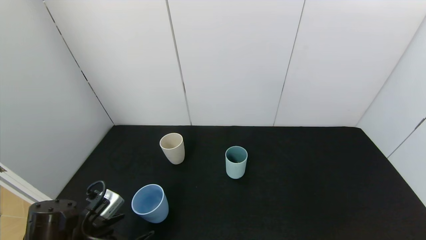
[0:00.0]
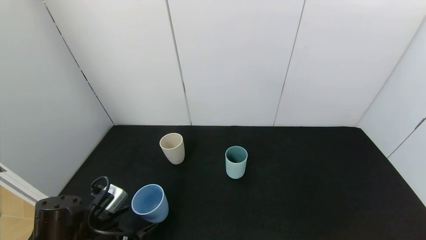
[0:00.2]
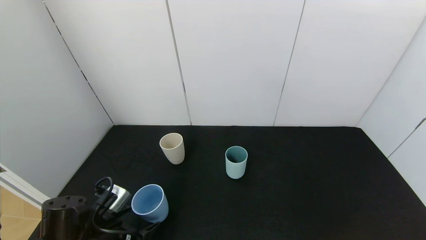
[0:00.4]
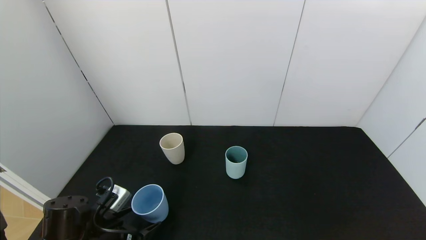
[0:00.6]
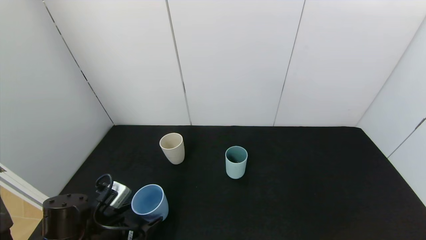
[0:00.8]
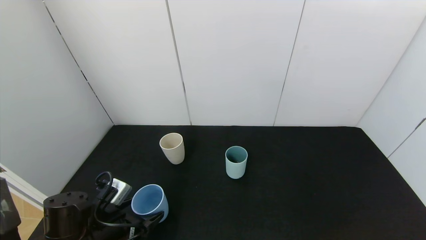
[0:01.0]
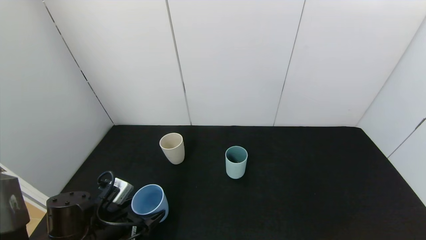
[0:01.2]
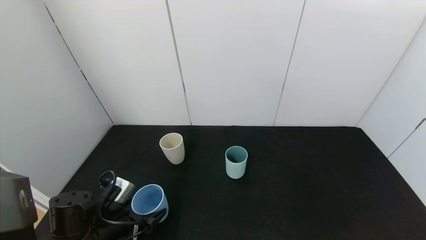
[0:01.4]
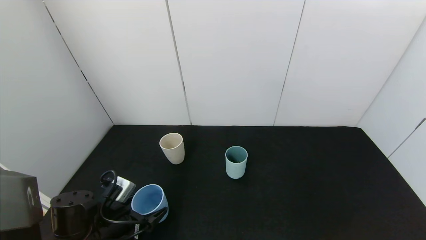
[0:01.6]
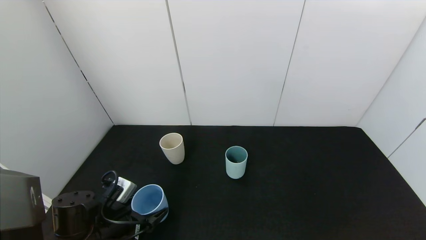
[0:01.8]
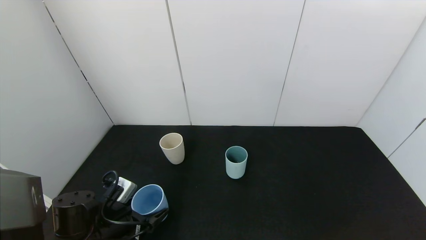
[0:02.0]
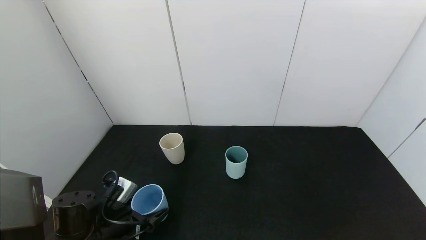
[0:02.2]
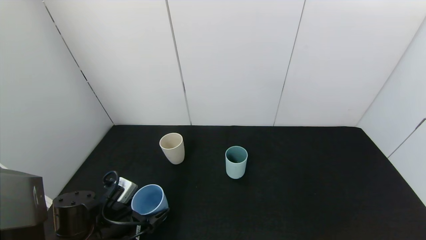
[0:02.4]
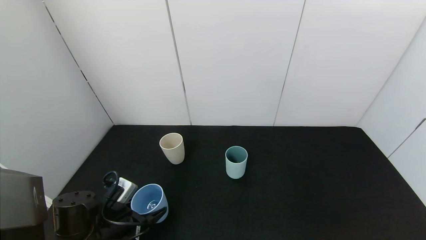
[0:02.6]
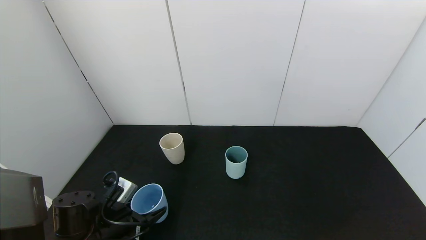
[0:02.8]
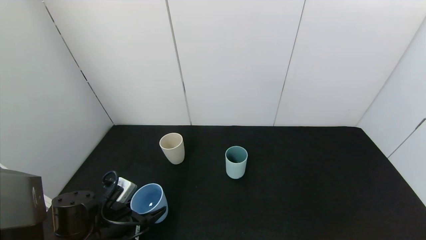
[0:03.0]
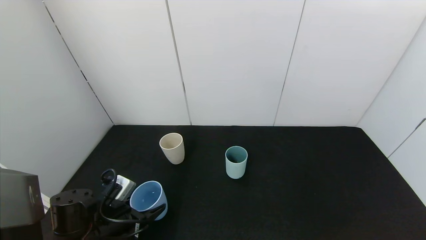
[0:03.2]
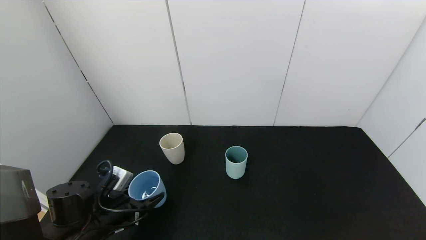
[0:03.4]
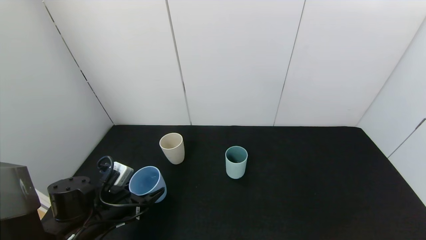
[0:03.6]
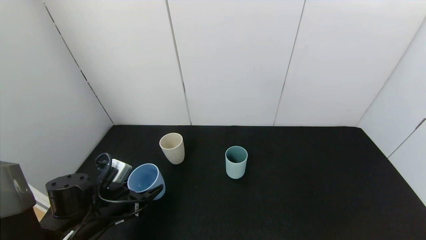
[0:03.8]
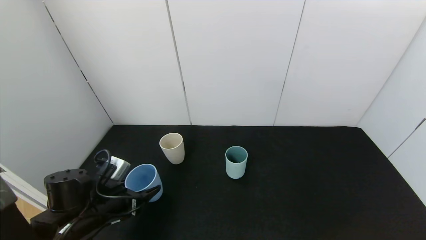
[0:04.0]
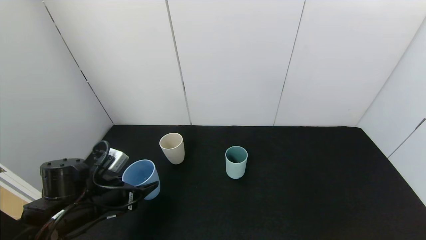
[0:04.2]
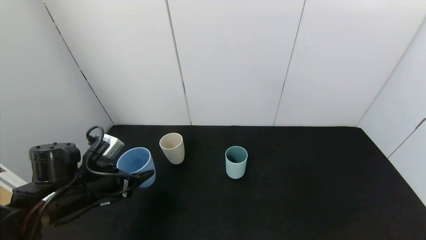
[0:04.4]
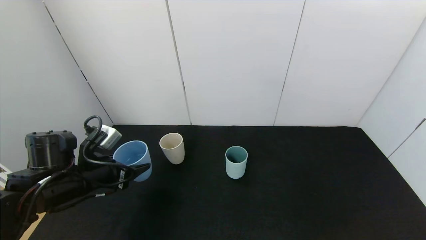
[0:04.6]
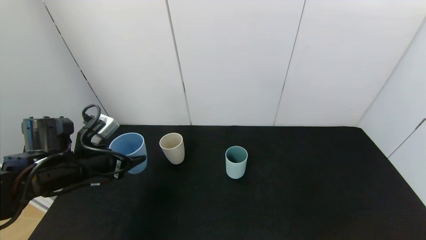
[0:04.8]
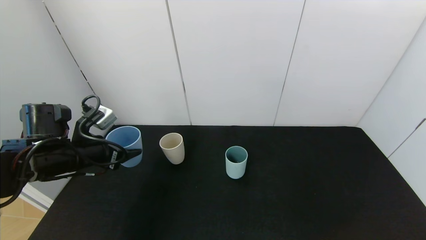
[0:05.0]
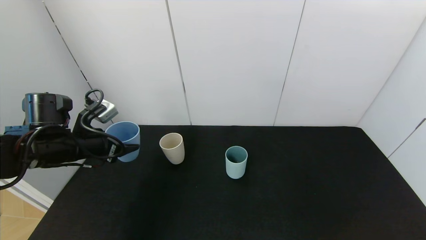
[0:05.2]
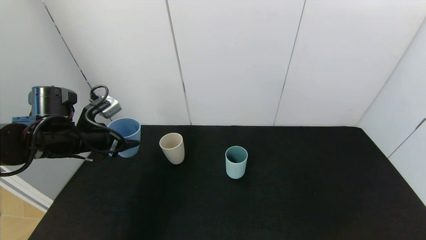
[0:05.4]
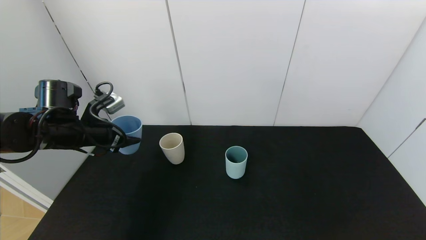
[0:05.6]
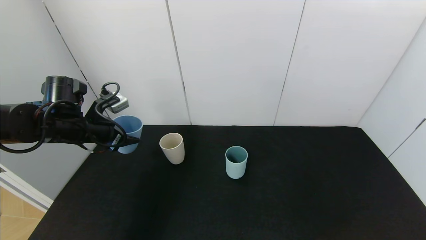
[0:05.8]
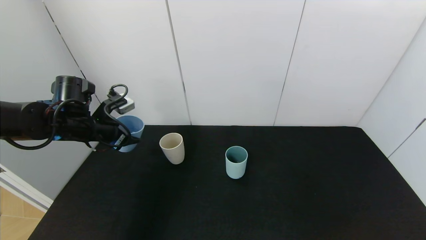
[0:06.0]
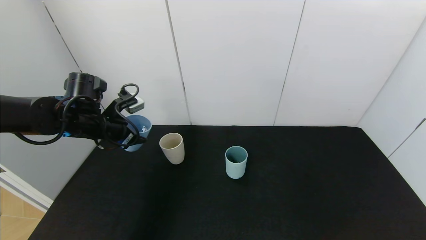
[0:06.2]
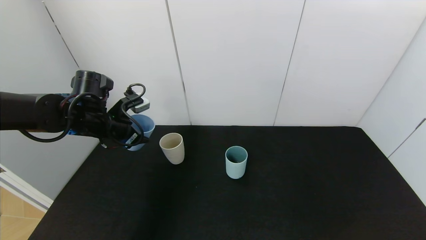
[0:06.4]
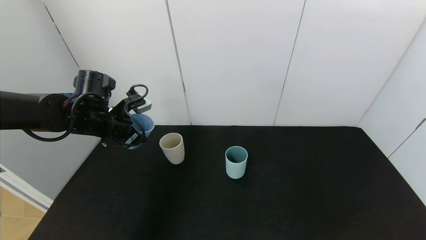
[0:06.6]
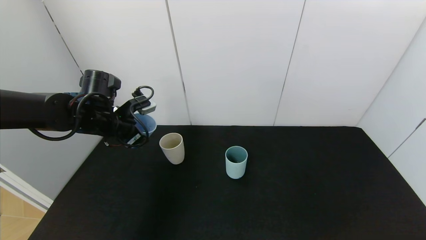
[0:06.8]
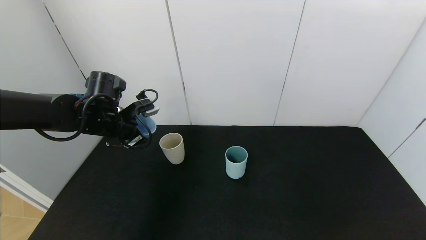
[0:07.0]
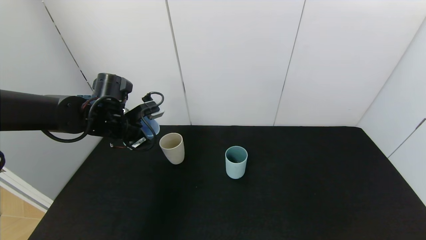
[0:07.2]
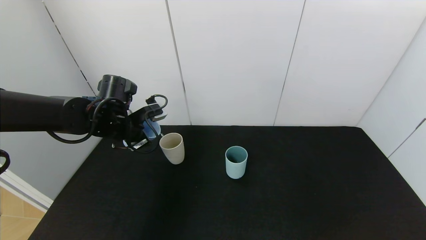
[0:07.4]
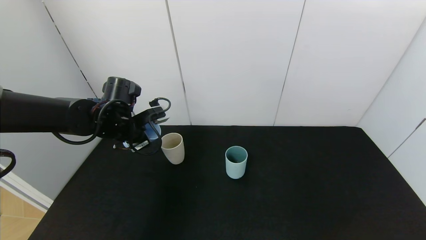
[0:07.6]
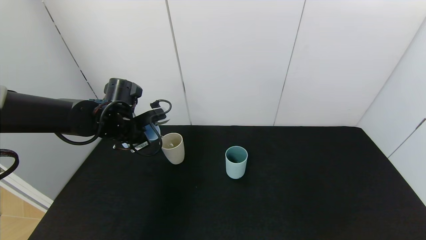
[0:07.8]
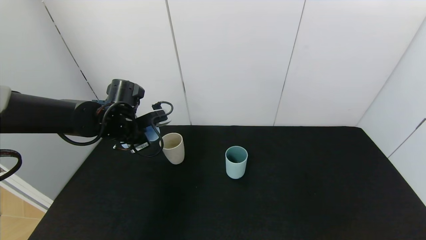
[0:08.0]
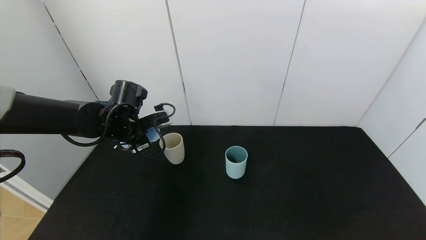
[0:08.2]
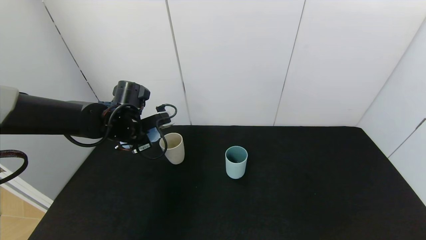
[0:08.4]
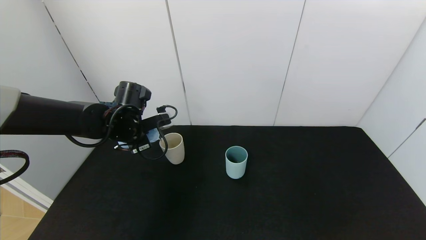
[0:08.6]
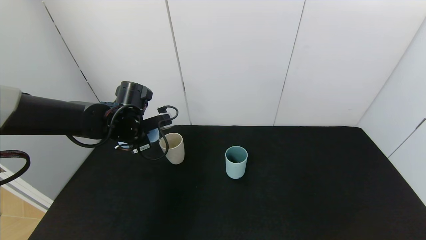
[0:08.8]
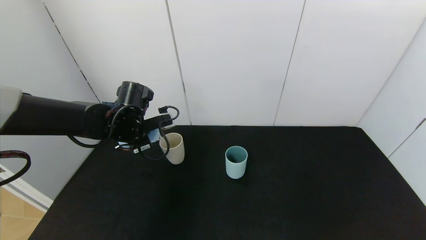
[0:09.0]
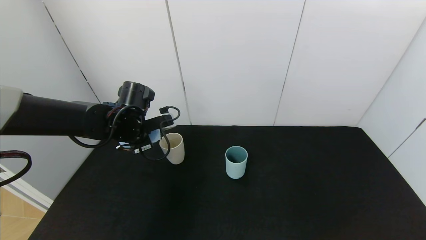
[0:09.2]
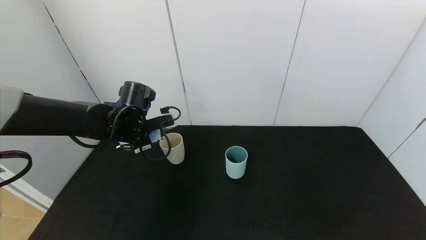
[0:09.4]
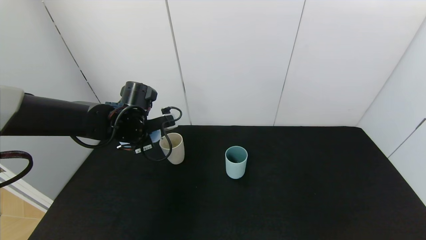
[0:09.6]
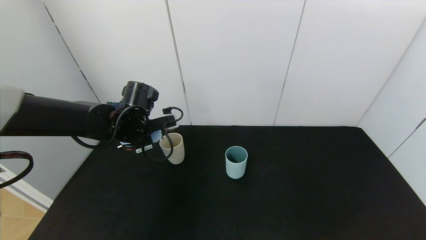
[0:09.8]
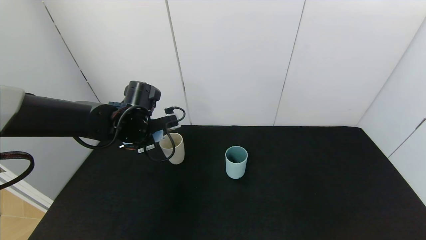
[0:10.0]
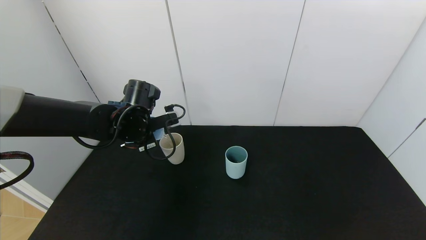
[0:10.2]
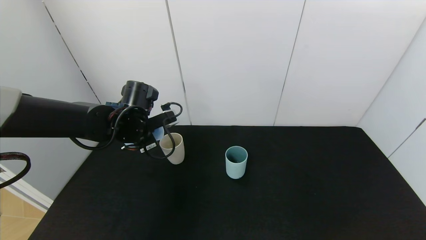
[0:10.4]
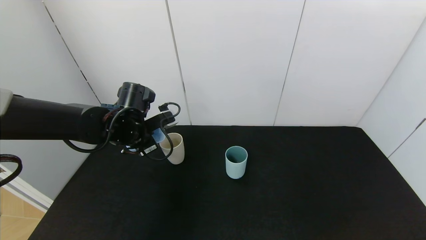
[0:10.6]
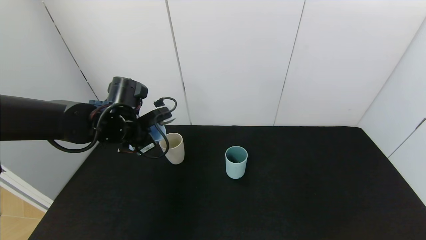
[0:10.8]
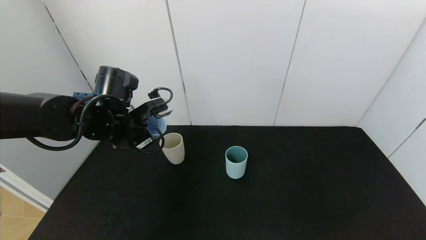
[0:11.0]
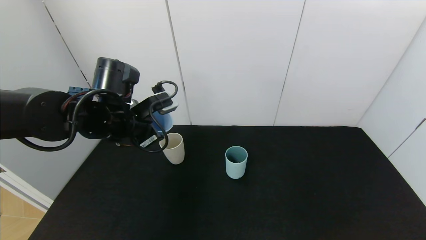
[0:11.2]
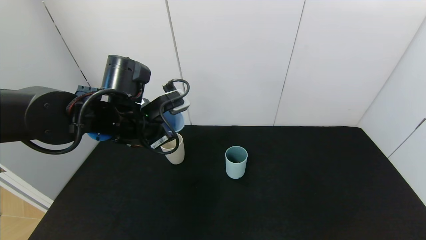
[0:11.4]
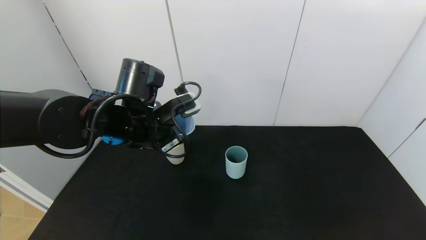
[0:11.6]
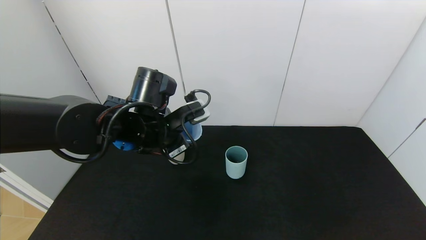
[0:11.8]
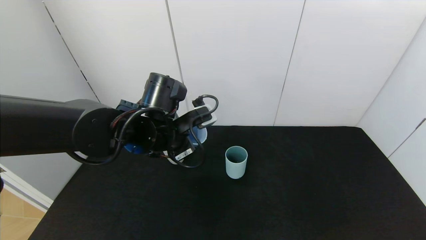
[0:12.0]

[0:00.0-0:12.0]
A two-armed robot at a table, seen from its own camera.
Task of the whole recording: use the gripper to pour the water into the other two cups on black table.
Step, 0:00.0 to 0:03.0: Grasp the blue cup with the left gripper.
Step, 0:03.2 to 0:11.0: Pour water from blue cup to white cup with the left gripper.
0:00.0 to 0:01.6: The grippers stay close to where they were, moving slightly.
0:01.6 to 0:03.0: The left gripper closes.
0:03.0 to 0:04.4: The left gripper heads upward, covering about 10 cm.
0:04.4 to 0:06.0: The left gripper shifts approximately 15 cm forward and upward.
0:06.0 to 0:07.6: The left gripper heads to the right, covering roughly 5 cm.
0:07.6 to 0:10.4: The grippers stay close to where they were, moving slightly.
0:10.4 to 0:12.0: The left gripper is displaced to the right and backward by about 10 cm.

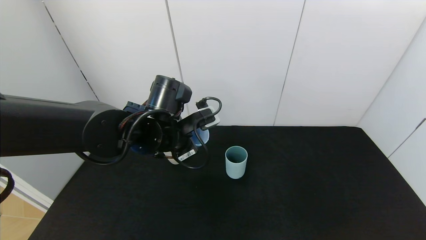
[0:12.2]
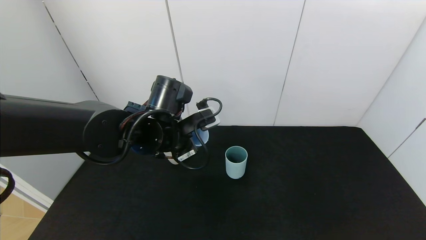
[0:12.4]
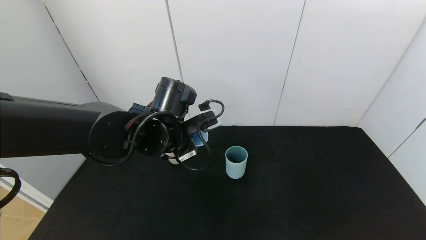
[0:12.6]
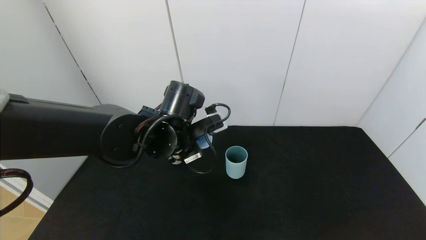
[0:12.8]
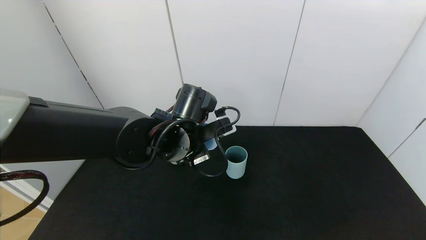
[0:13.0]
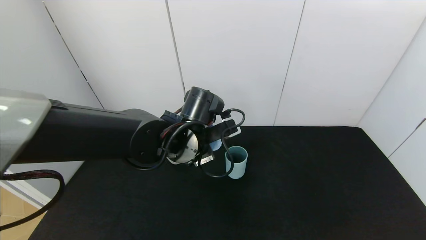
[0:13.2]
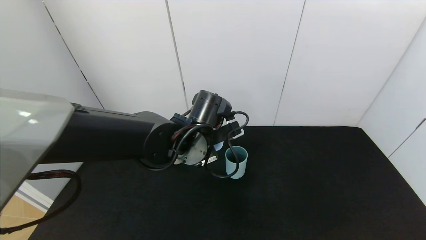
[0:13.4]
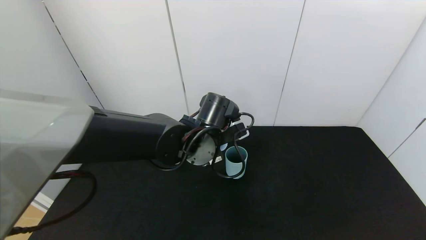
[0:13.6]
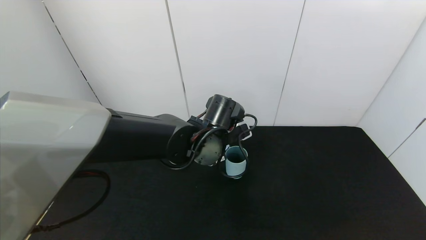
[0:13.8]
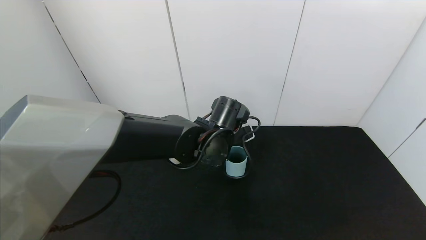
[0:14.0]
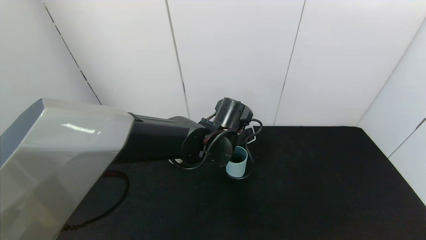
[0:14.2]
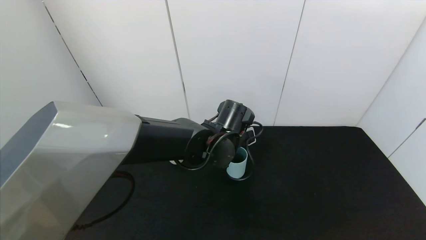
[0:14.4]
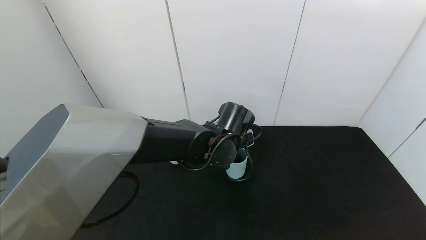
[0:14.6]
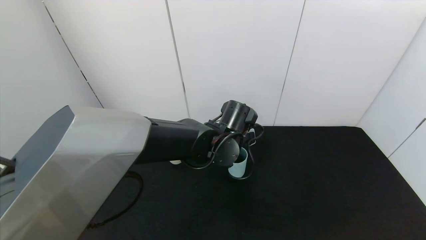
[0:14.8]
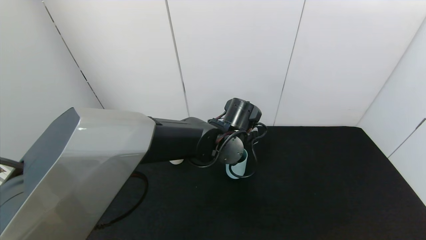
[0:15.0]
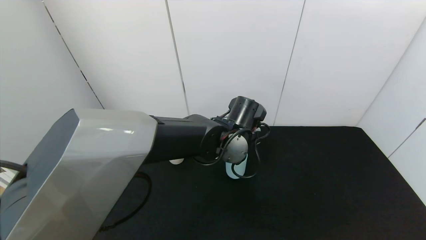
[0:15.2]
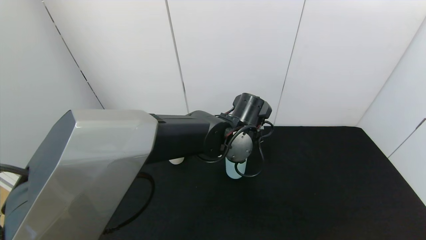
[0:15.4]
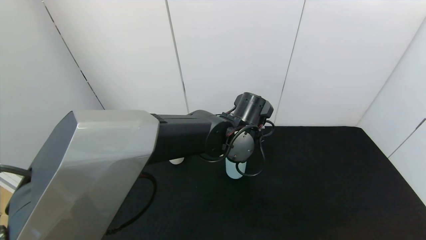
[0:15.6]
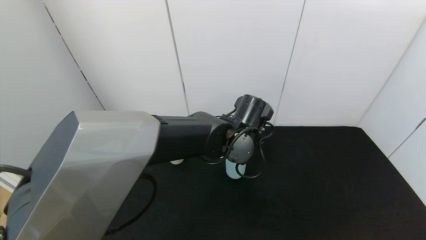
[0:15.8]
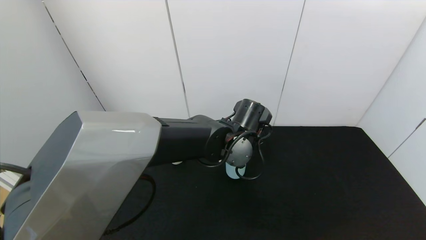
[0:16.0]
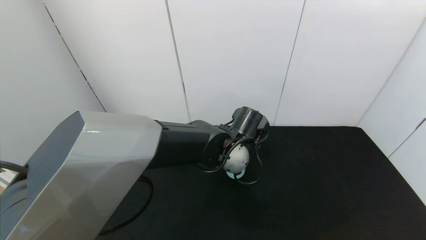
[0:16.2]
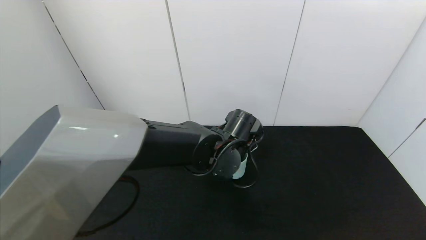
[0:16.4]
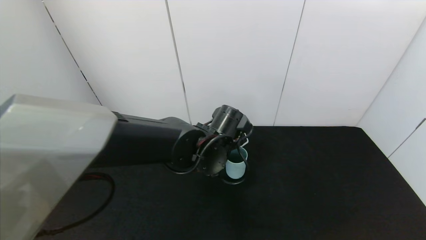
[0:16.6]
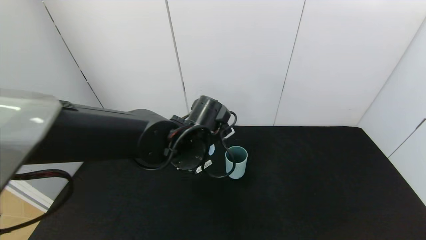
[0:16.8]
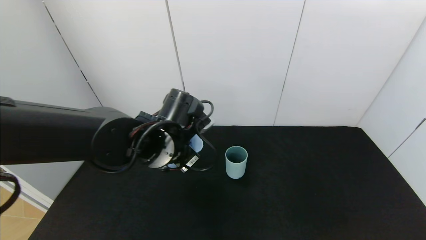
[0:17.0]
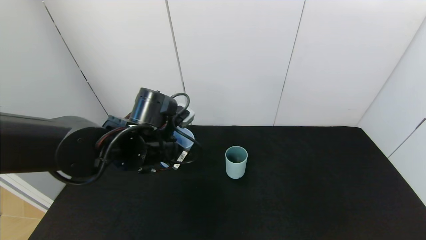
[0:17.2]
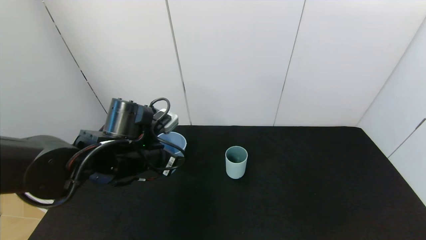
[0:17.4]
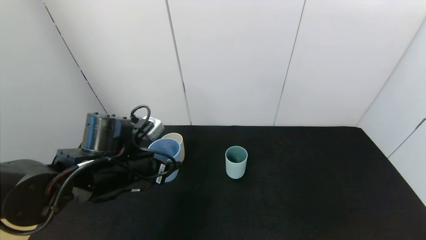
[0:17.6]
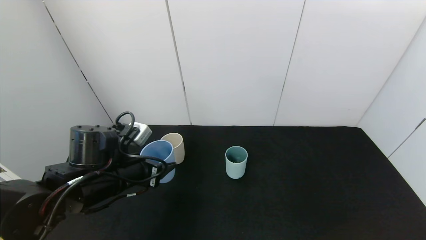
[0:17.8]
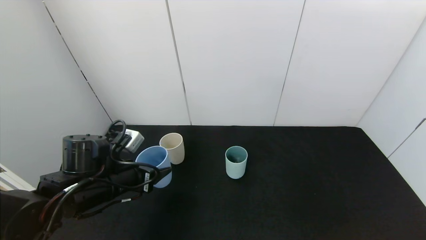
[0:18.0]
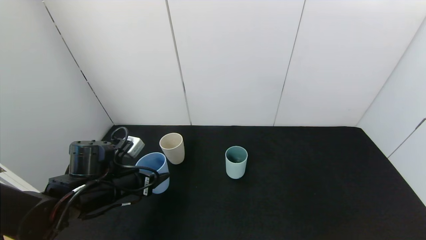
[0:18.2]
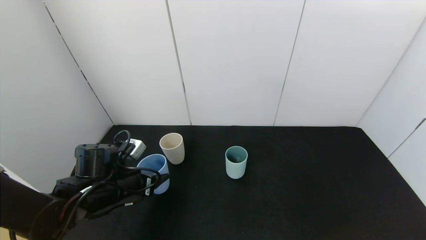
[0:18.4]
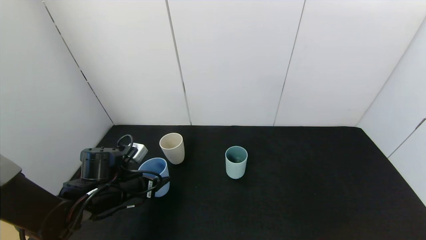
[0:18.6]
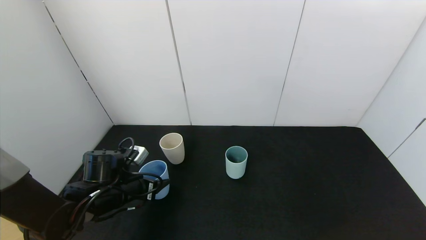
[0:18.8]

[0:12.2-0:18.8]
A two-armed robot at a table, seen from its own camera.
Task of the whole recording: use the gripper to pour the water into the other two cups on black table.
Step, 0:12.2 to 0:17.0: Pour water from blue cup to green cup with the left gripper.
0:12.2 to 0:13.8: The left gripper heads to the right, covering some 10 cm.
0:15.4 to 0:17.2: The left gripper shifts some 15 cm to the left.
0:17.2 to 0:18.8: The left gripper shifts about 15 cm downward and to the left.
